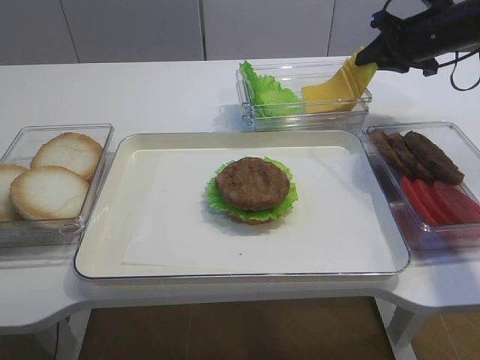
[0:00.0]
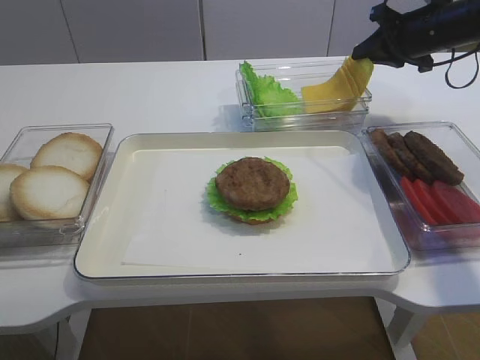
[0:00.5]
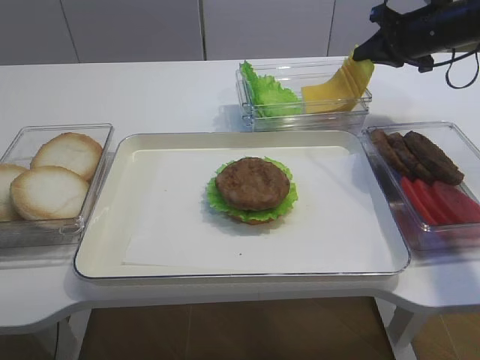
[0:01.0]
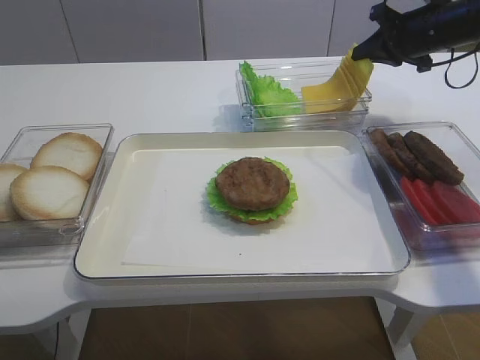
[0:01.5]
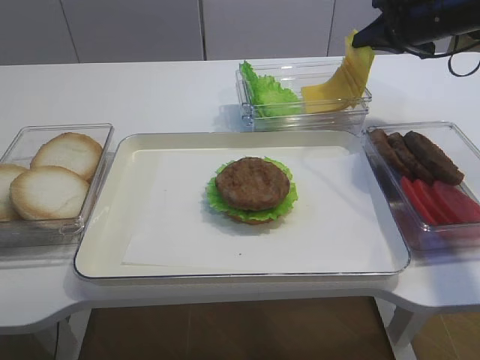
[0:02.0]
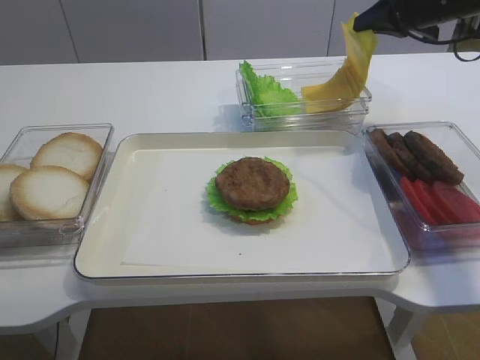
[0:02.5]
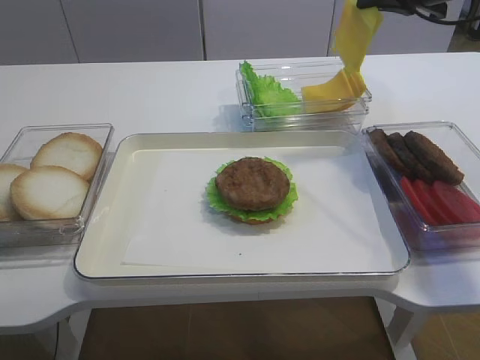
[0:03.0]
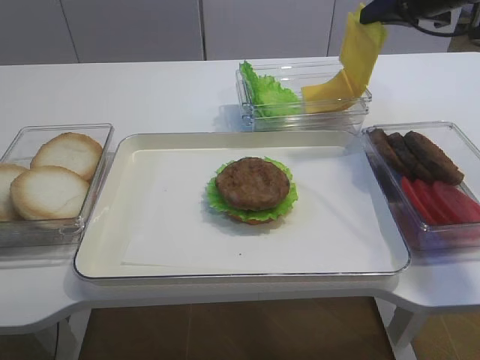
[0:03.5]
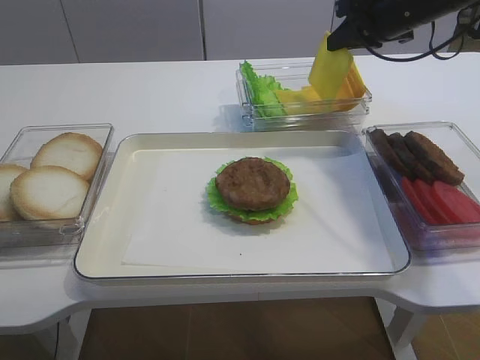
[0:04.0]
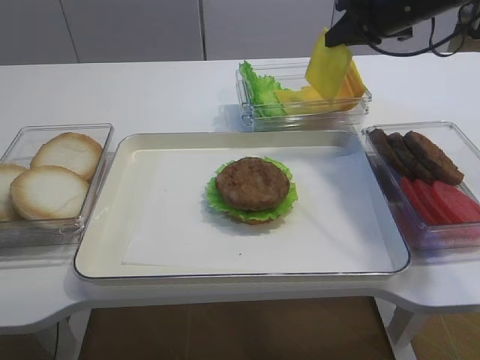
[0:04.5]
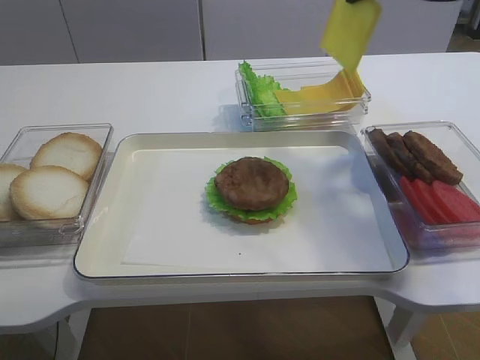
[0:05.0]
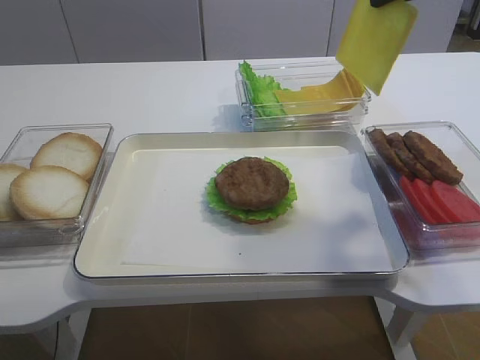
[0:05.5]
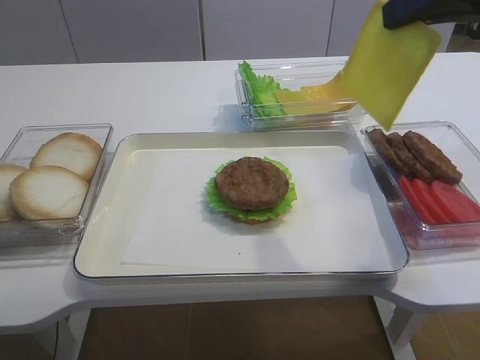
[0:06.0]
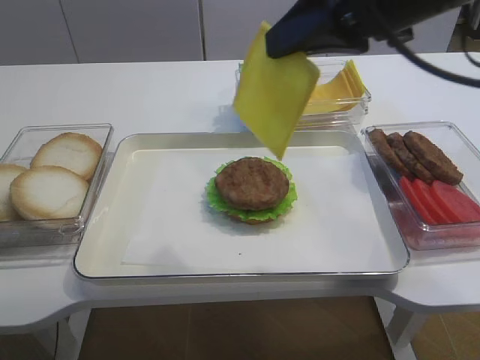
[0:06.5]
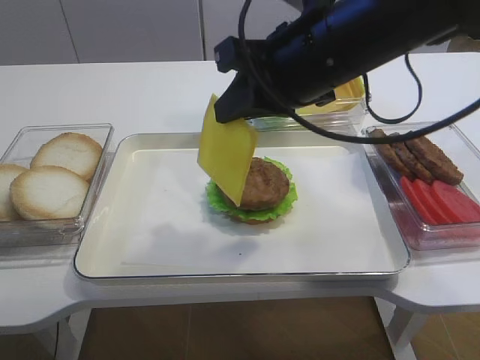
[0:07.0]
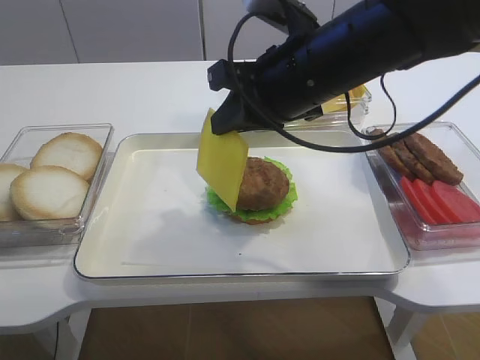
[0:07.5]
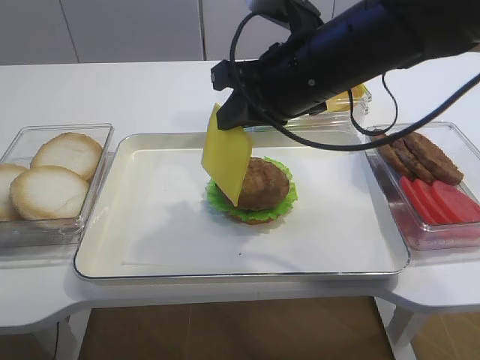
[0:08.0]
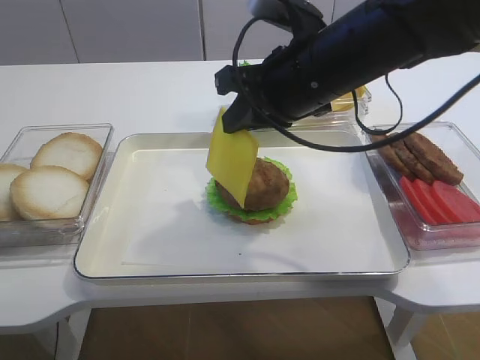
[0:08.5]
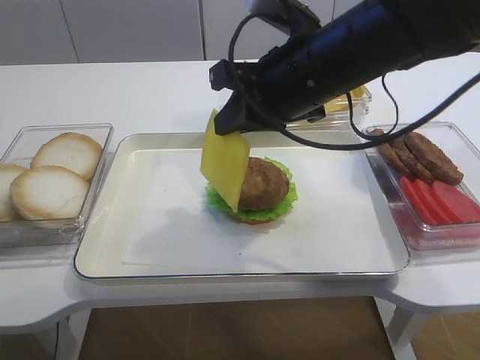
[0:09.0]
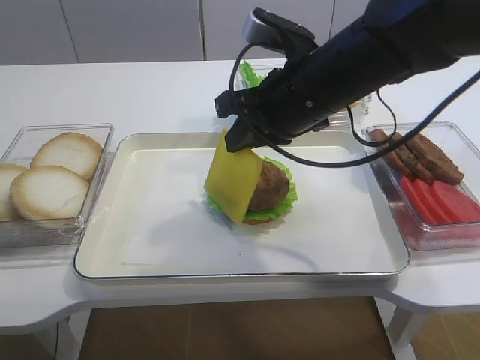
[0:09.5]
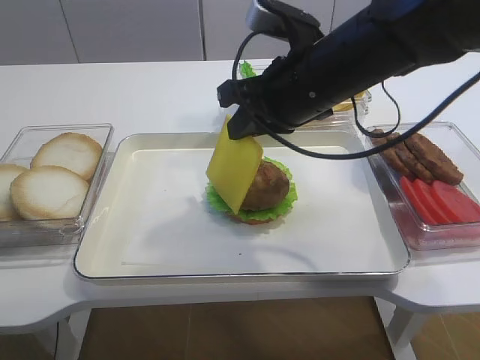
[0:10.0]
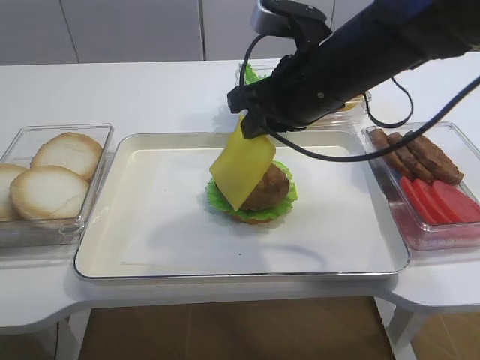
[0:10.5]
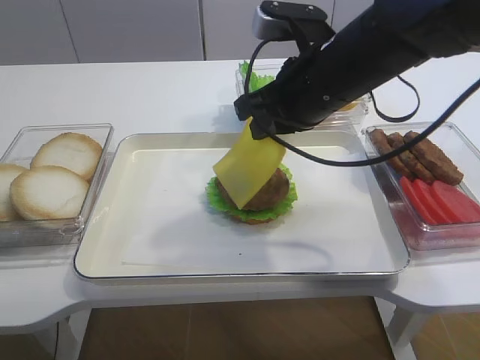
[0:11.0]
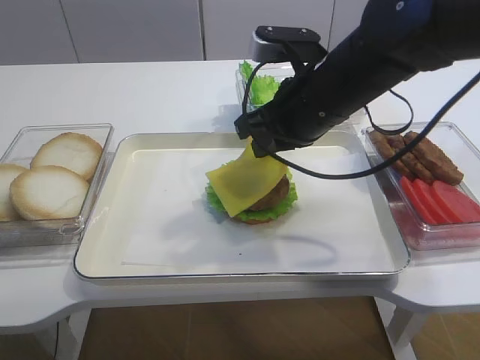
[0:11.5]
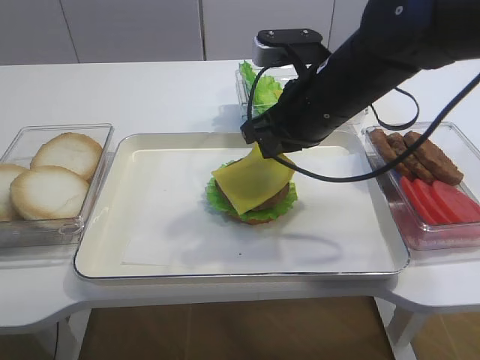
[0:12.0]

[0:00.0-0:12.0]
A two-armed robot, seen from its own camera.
Step, 0:00.0 to 0:04.5: Pick up the cheese slice with the right gripper.
0:00.0 to 0:02.0: The grippers move only a little.
0:02.0 to 0:04.0: The right gripper is displaced to the left by approximately 5 cm.
0:04.0 to 0:06.0: The right gripper moves backward and upward, approximately 25 cm.
0:06.0 to 0:08.0: The right gripper heads to the left and downward, covering approximately 20 cm.
0:08.0 to 0:10.0: The grippers stay close to where they were, moving slightly.
0:10.0 to 0:12.0: The grippers move only a little.

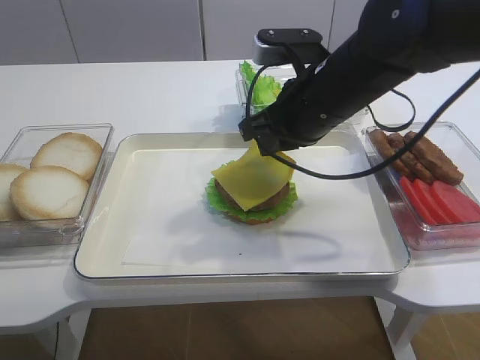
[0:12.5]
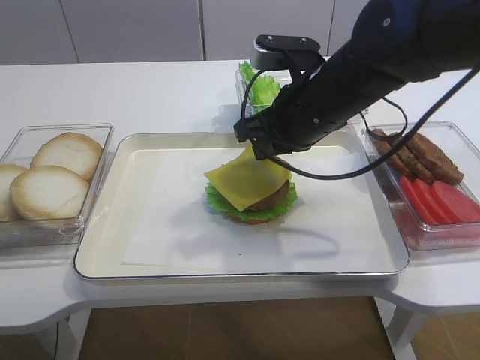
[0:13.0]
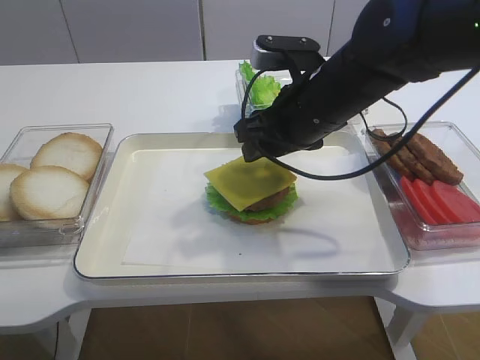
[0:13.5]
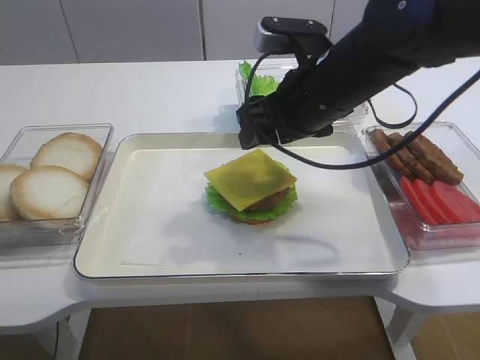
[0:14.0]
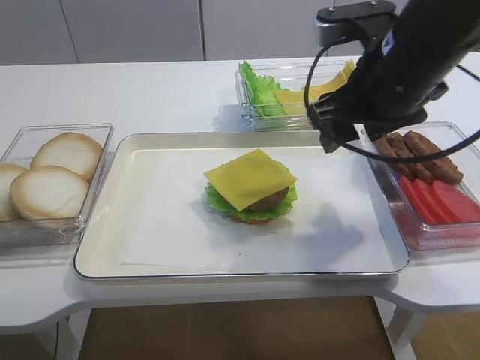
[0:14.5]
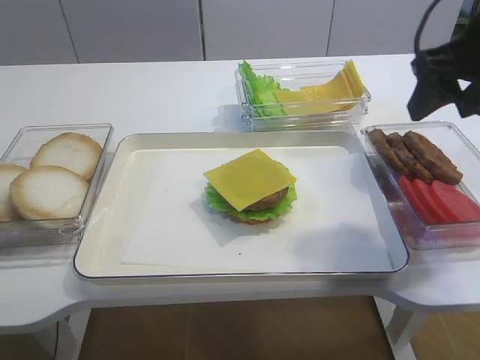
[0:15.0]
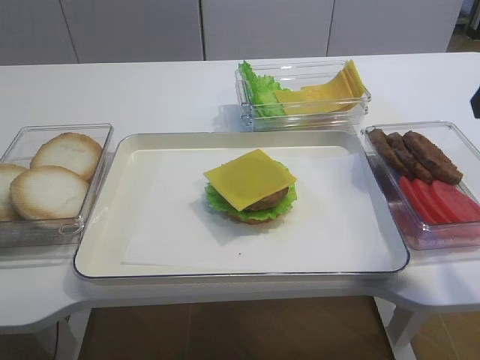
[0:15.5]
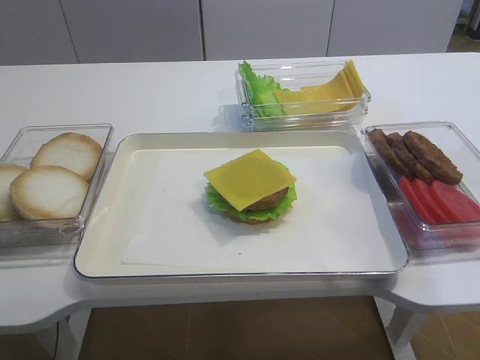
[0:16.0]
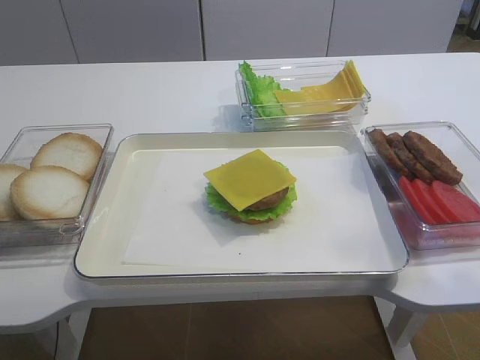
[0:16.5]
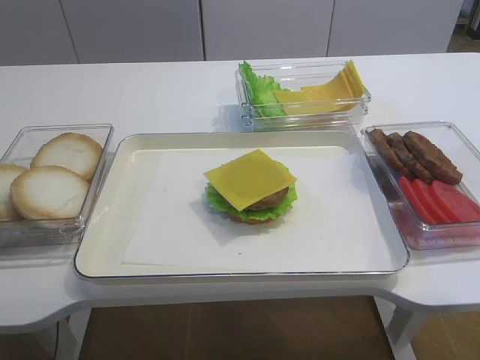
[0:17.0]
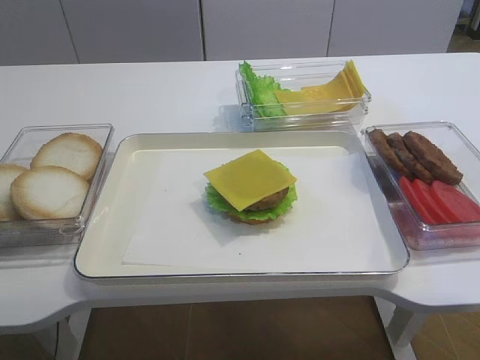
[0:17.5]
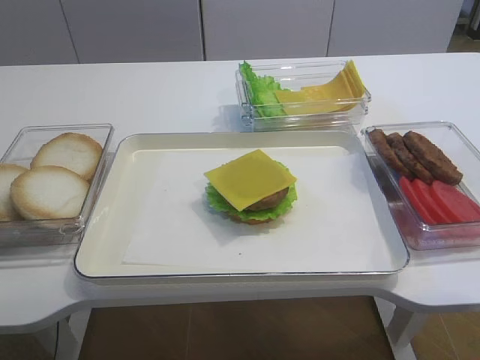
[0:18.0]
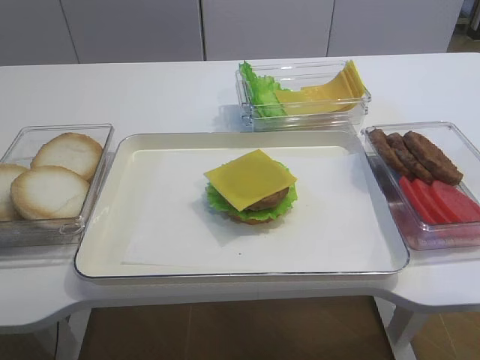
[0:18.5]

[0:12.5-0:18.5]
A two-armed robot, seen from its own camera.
0:12.5 to 0:14.5: The right gripper travels to the right by some 5 cm, and opens.
0:14.5 to 0:16.5: The right gripper is displaced backward and to the right by some 30 cm.

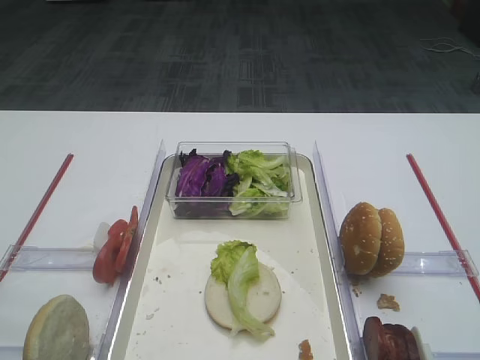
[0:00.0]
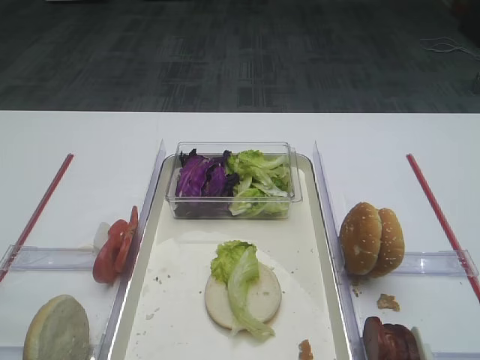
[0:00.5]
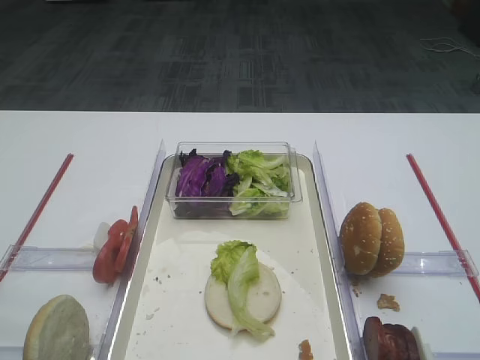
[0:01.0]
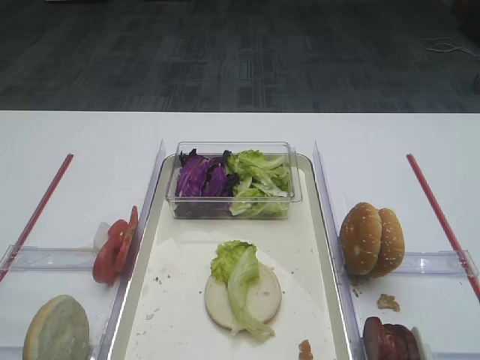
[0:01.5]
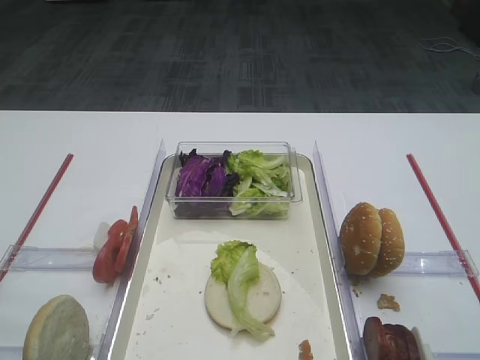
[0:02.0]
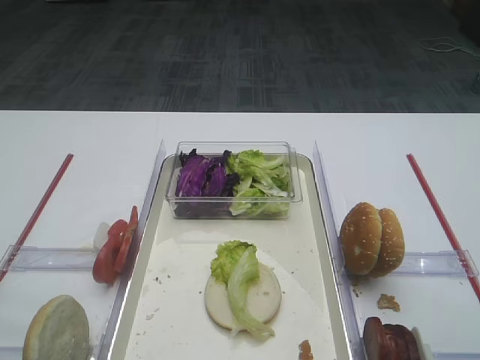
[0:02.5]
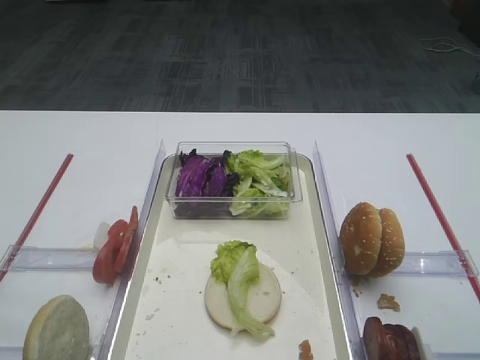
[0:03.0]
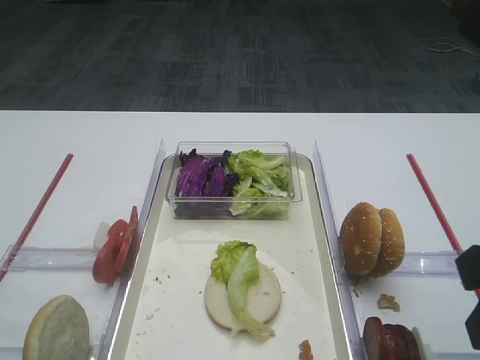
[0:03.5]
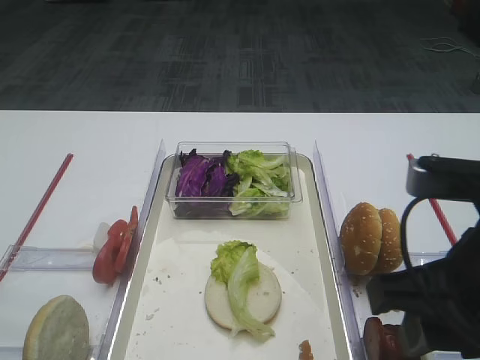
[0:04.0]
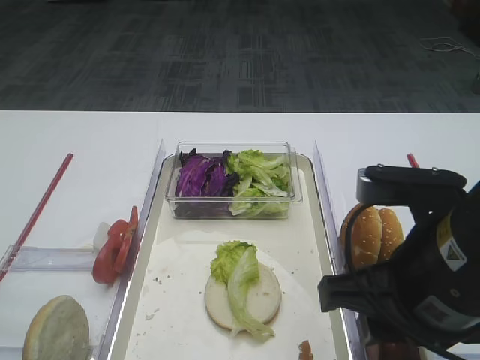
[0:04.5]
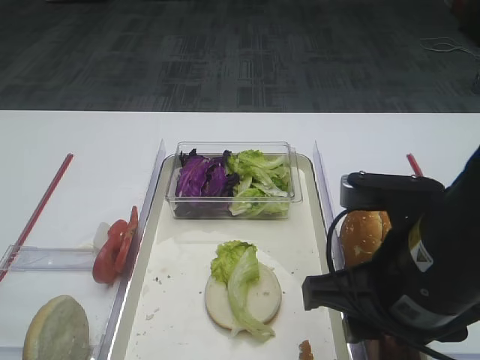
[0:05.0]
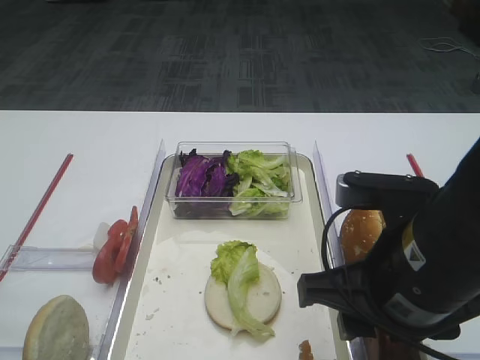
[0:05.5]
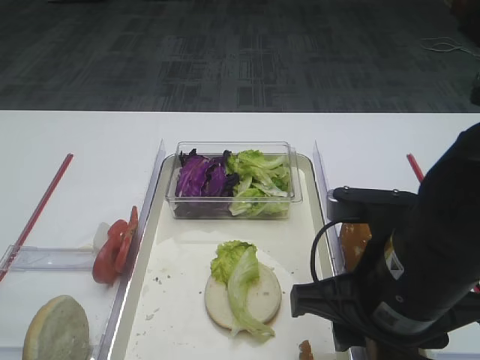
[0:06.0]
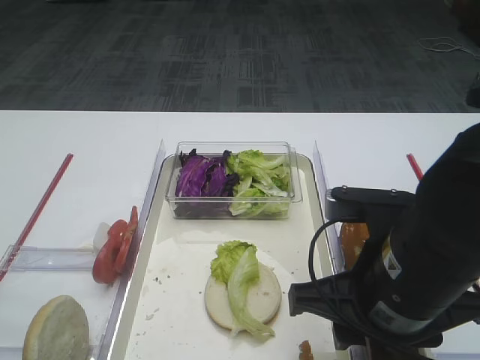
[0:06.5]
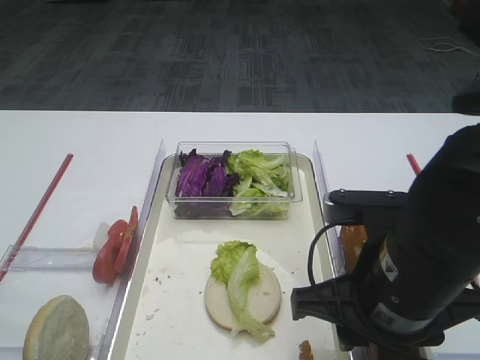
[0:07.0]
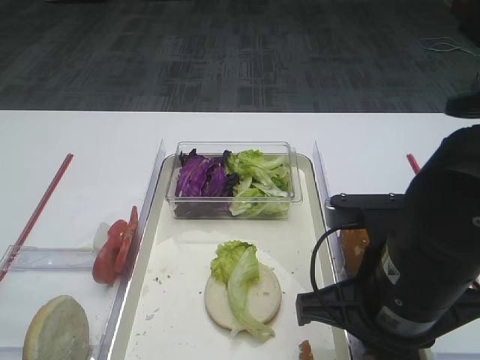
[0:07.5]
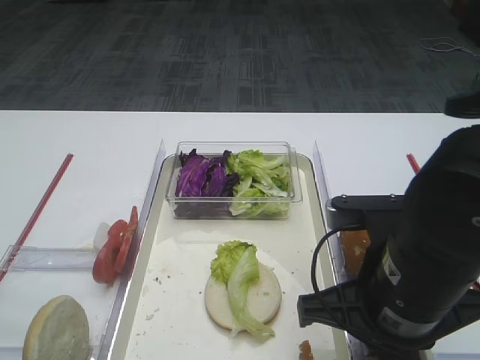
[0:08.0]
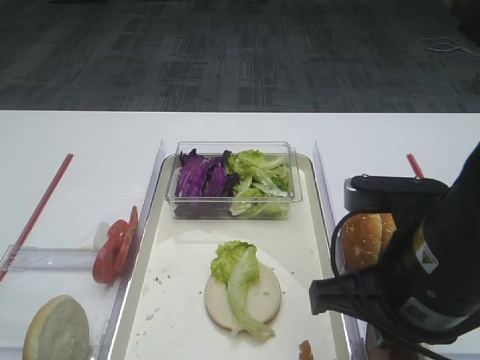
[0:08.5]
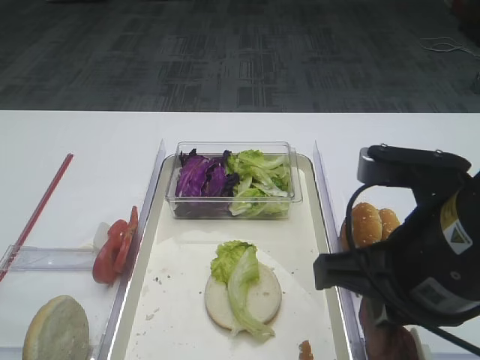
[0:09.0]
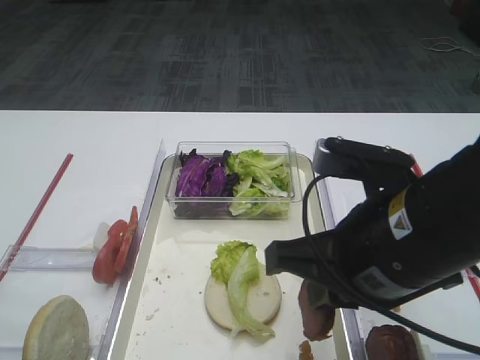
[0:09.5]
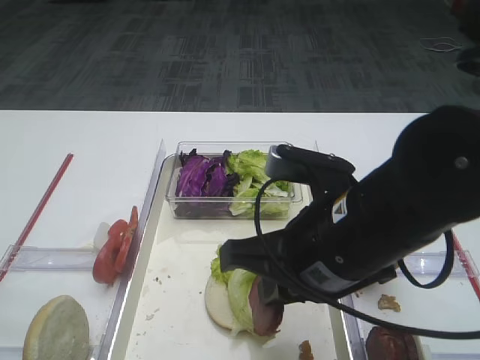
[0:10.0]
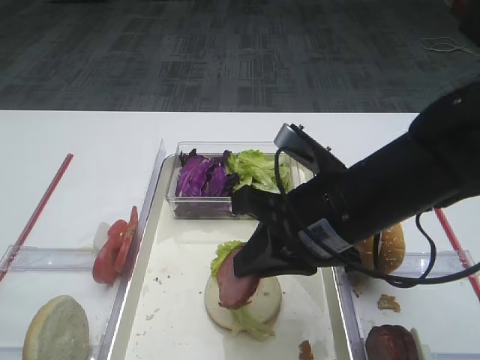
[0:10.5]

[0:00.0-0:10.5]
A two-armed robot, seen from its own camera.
Step, 0:00.0 to 0:09.0: Pick up the cutlet with the right gripper.
0:02.0 to 0:04.0: The right gripper moves to the left, forward and downward, approximately 15 cm.
0:04.0 to 0:06.5: The right gripper shifts about 5 cm downward.
0:06.5 to 0:08.5: The right gripper closes.
0:08.5 to 0:10.5: The right gripper goes some 5 cm forward.
